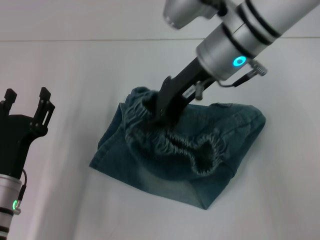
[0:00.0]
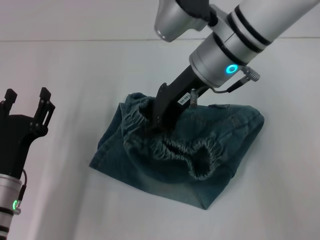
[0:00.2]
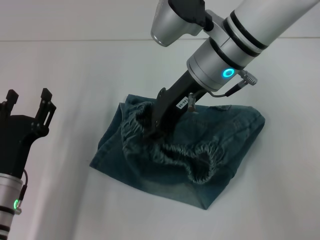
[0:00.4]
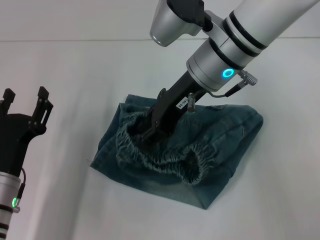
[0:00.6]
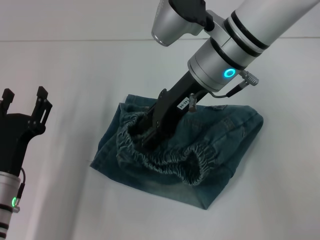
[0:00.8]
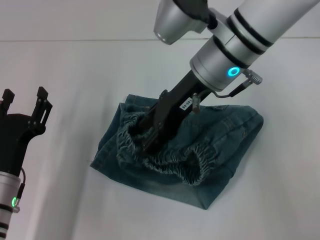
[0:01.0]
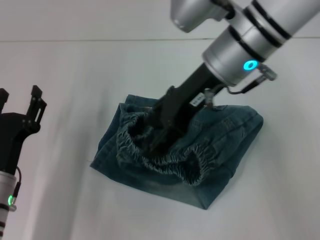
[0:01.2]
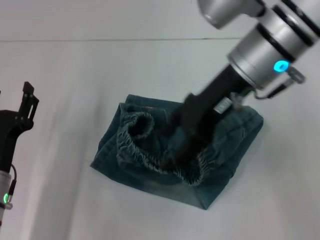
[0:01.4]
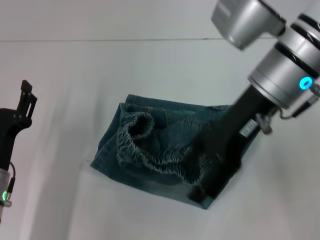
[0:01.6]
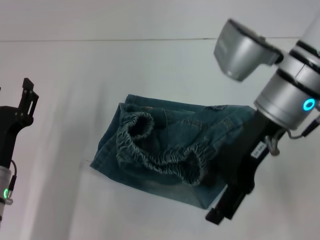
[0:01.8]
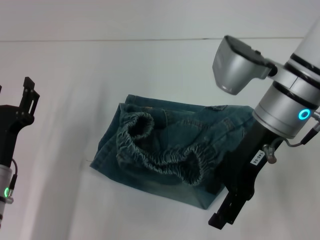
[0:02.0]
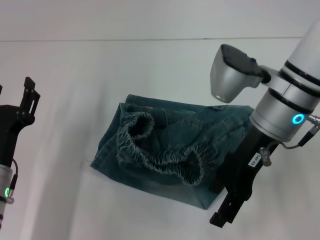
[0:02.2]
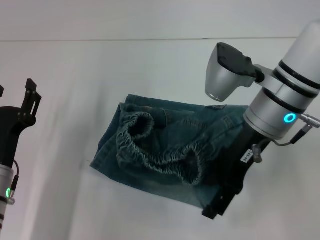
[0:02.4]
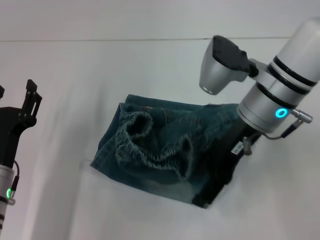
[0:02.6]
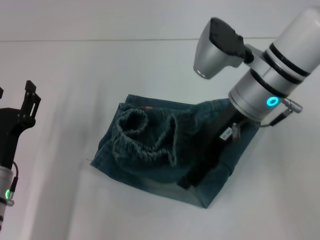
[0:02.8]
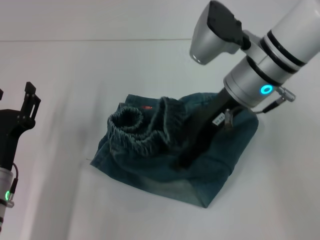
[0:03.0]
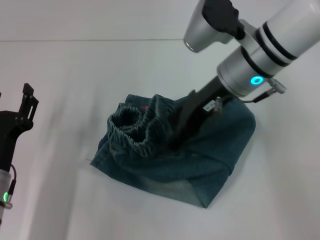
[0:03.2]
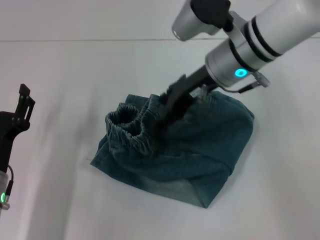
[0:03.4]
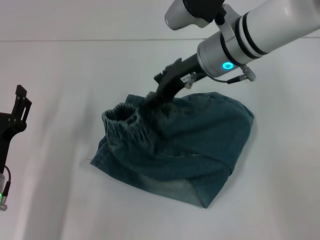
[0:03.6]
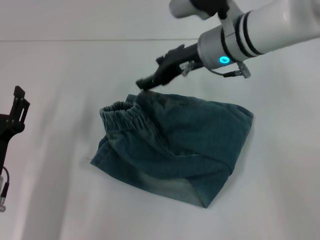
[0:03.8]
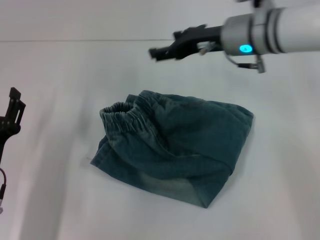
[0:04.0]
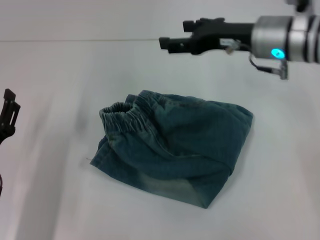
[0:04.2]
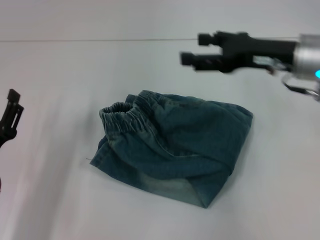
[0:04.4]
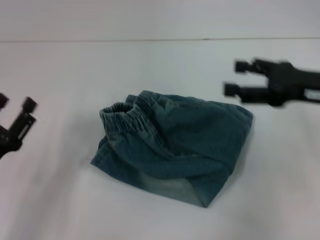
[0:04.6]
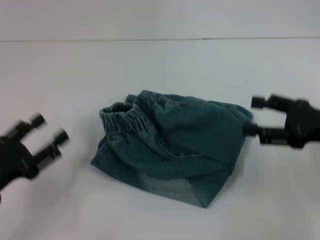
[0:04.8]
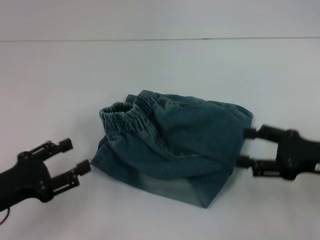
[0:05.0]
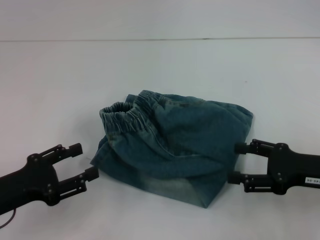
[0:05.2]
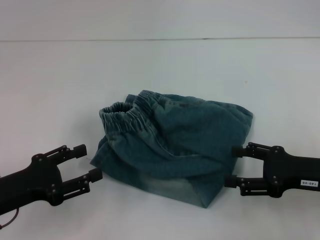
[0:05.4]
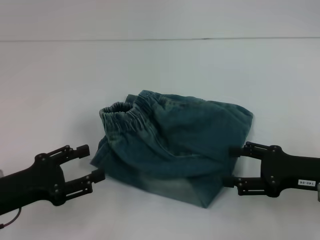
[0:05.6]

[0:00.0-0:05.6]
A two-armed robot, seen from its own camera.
Step, 0:00.6 to 0:03.8: Adjust the pants with your right hand.
0:00.0 to 0:01.4: The right gripper opens up.
0:01.4 to 0:02.8: The right gripper travels downward by approximately 5 cm.
0:02.8 to 0:04.2: The right gripper travels to the right by roughly 5 cm.
0:04.2 to 0:05.6: The right gripper heads backward, downward and to the right, covering roughly 20 cm. Meanwhile the left gripper shifts by approximately 5 cm.

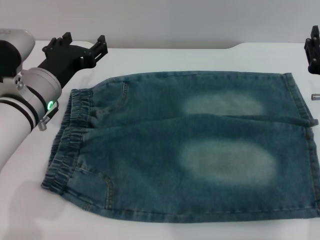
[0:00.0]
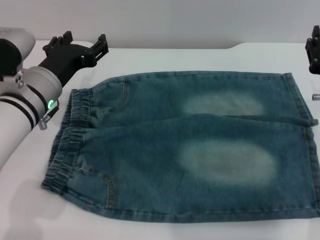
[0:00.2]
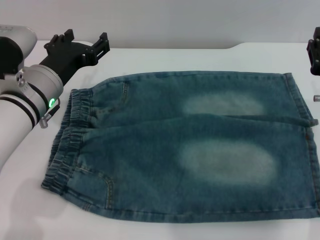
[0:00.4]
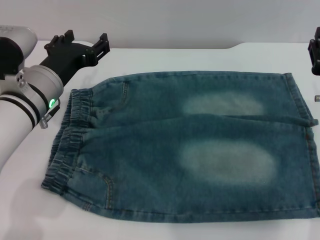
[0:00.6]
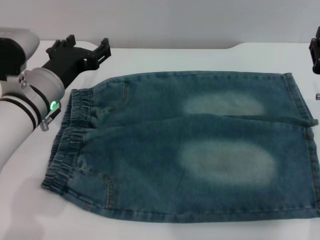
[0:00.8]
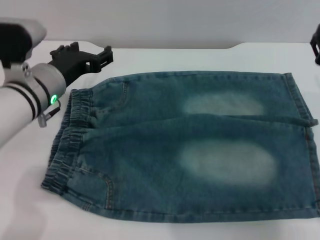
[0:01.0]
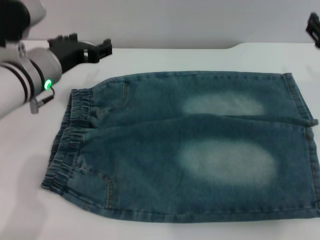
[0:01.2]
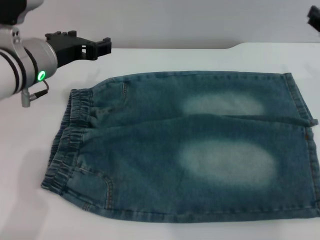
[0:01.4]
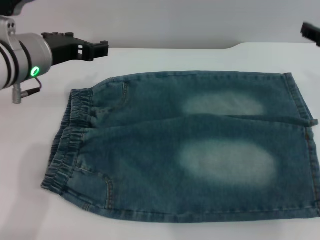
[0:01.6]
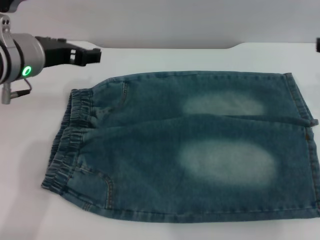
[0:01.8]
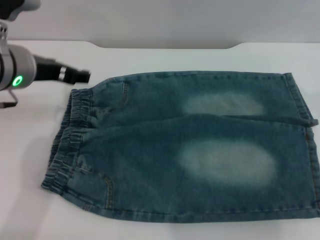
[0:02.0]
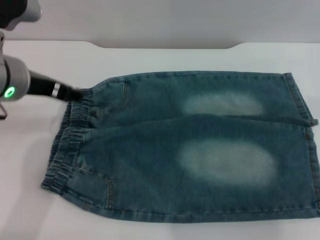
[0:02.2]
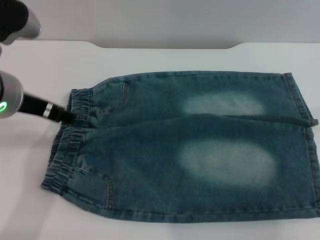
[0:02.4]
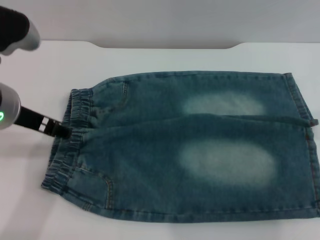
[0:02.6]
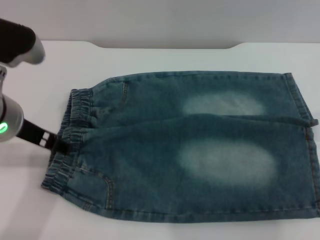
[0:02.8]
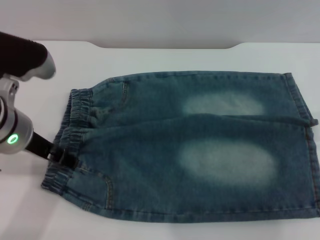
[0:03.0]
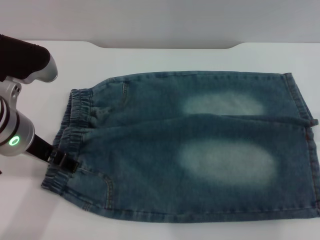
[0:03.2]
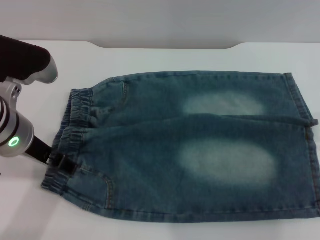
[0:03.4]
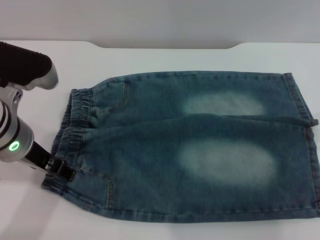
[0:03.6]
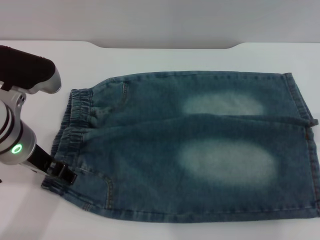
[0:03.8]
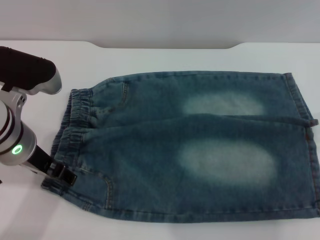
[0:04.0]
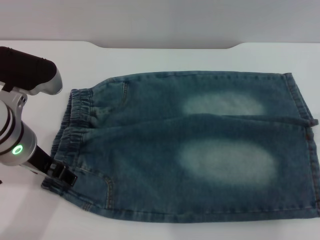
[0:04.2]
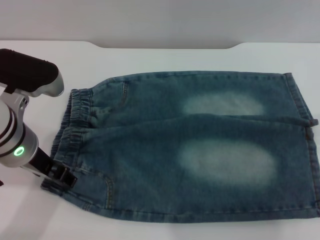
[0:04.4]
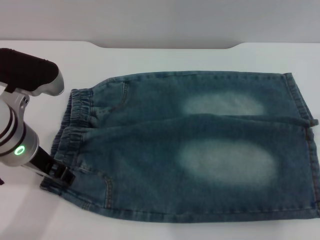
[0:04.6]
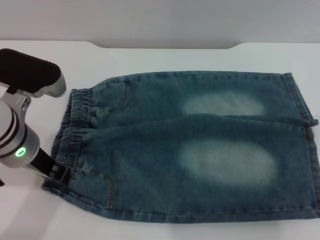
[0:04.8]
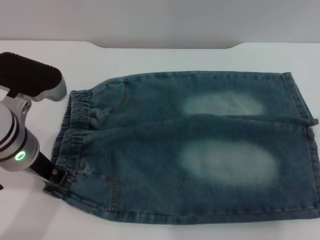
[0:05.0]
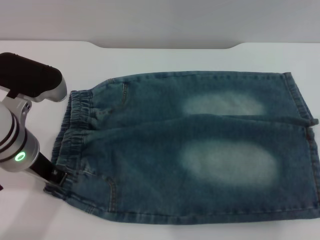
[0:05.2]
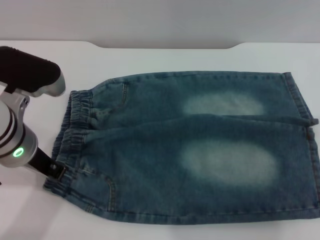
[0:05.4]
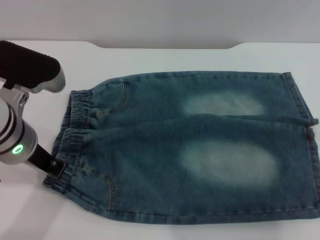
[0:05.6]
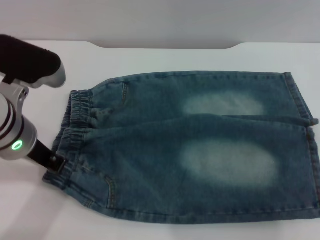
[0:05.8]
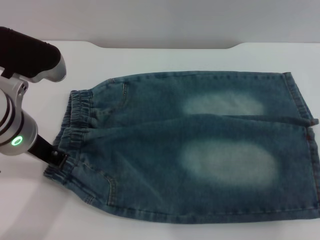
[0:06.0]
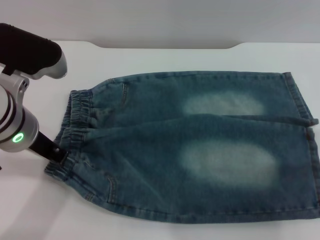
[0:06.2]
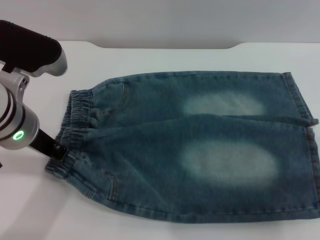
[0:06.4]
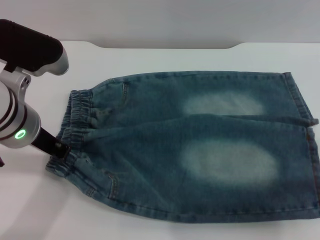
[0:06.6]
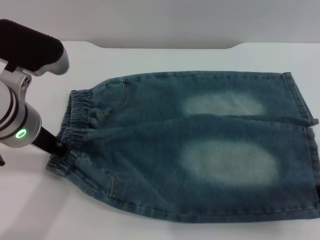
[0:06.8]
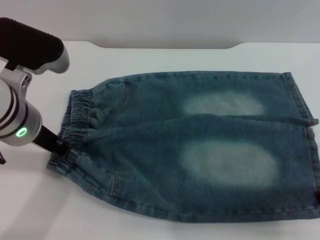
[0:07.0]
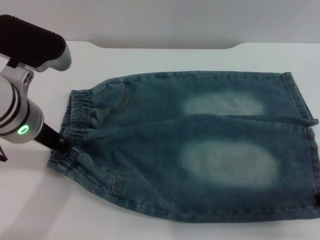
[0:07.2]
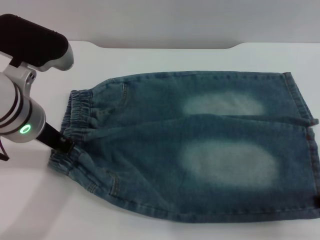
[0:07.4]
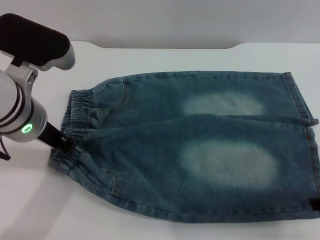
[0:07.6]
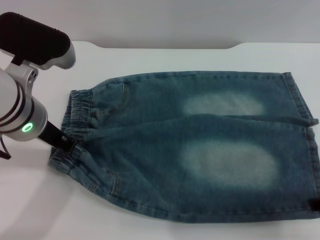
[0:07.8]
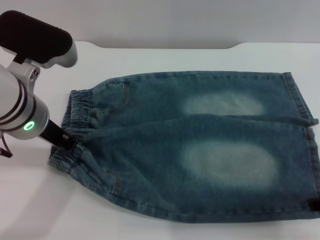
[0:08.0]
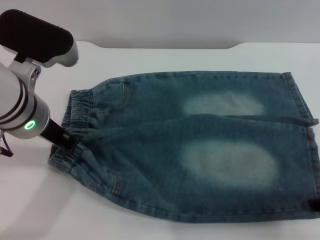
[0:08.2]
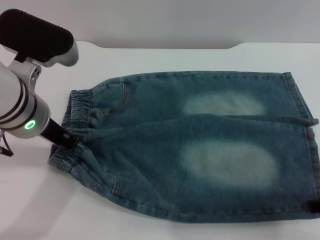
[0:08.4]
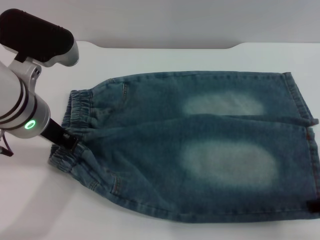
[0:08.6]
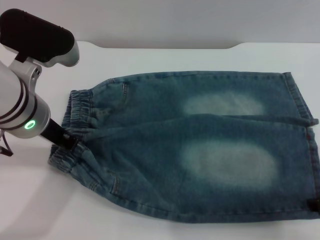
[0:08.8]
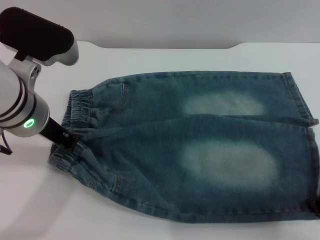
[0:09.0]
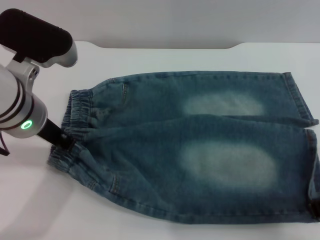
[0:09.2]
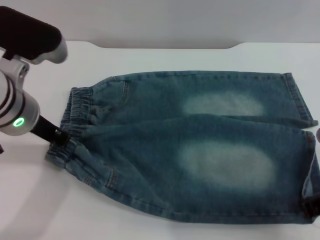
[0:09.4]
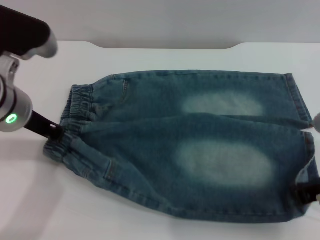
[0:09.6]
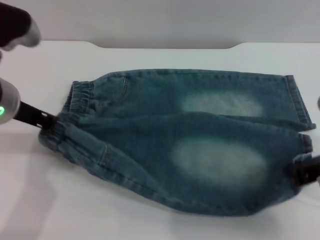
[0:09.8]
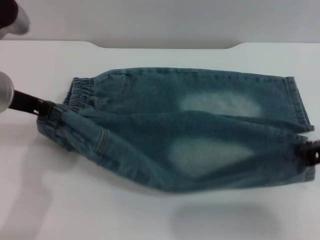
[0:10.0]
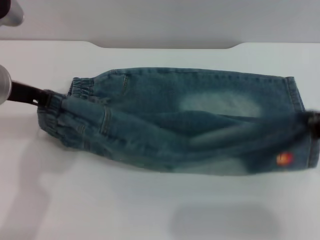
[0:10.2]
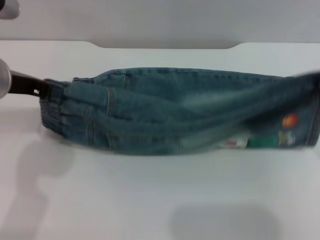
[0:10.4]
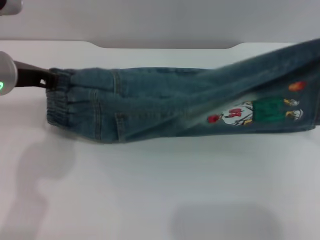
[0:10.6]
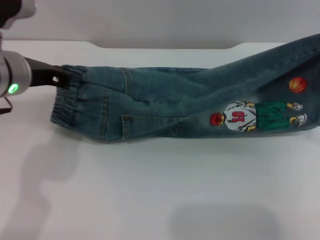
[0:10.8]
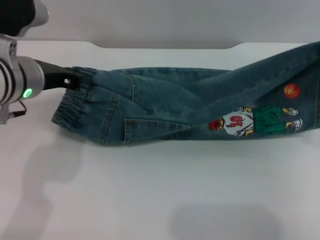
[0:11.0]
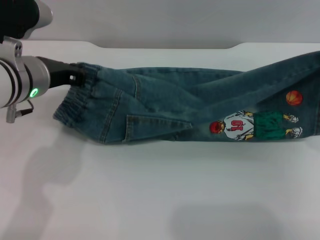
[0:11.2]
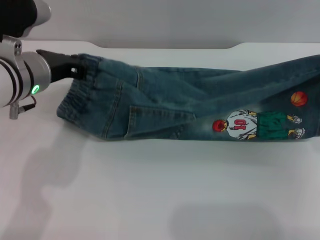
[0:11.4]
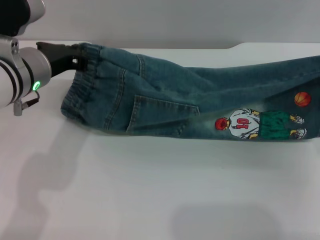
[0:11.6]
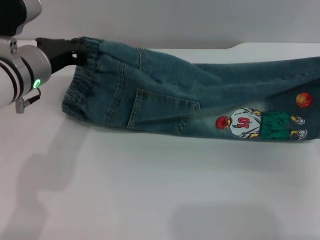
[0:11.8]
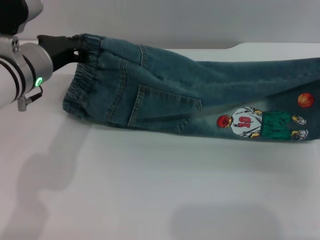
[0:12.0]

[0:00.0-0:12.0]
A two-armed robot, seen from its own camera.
0:00.0 to 0:01.6: The left gripper is displaced upward by roughly 5 cm. Meanwhile the right gripper shifts about 10 cm upward, to the right and forward.
0:01.6 to 0:03.0: The left gripper moves backward, some 5 cm.
0:03.0 to 0:04.4: The grippers make only small movements.
0:04.4 to 0:06.0: The left gripper closes.
0:06.0 to 0:07.6: The right gripper moves approximately 5 cm.
0:07.6 to 0:09.0: The right gripper closes up.
0:09.0 to 0:10.4: The right gripper heads upward, covering about 5 cm, and closes its fingers; the left gripper changes place by approximately 5 cm.
0:10.4 to 0:12.0: The right gripper moves downward, roughly 10 cm. The left gripper moves approximately 5 cm.

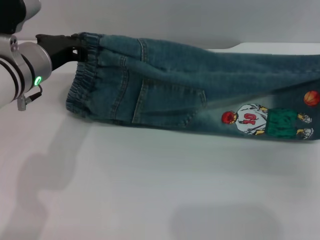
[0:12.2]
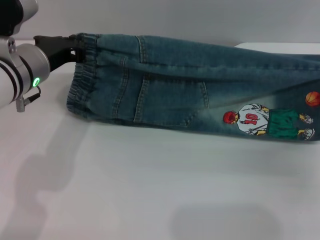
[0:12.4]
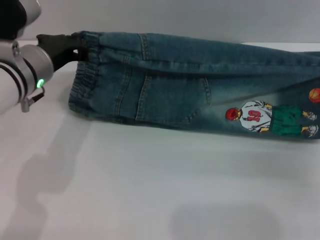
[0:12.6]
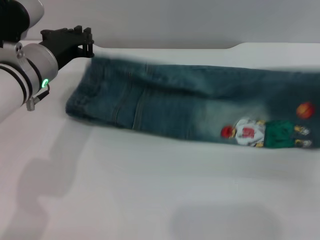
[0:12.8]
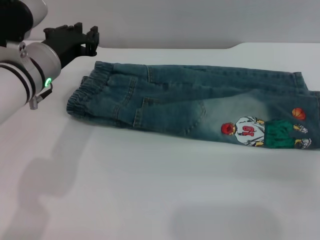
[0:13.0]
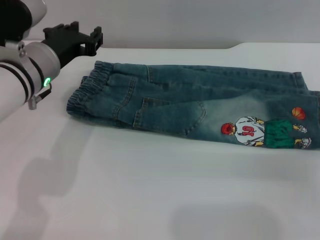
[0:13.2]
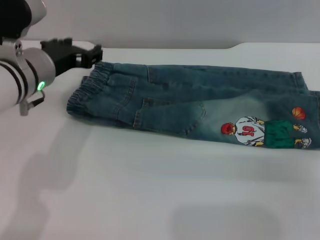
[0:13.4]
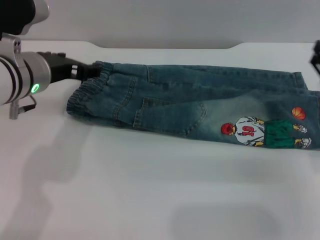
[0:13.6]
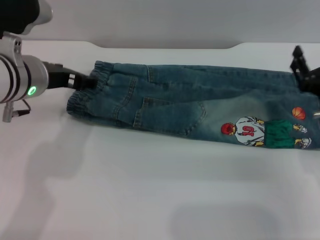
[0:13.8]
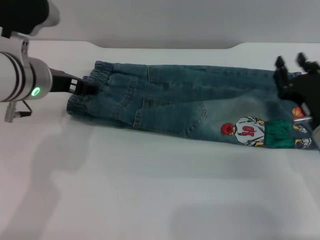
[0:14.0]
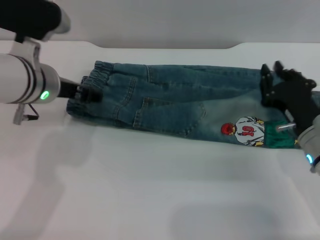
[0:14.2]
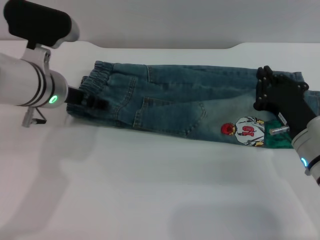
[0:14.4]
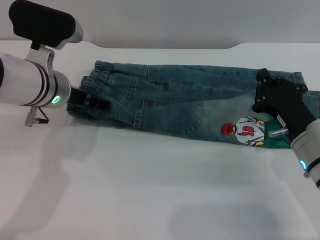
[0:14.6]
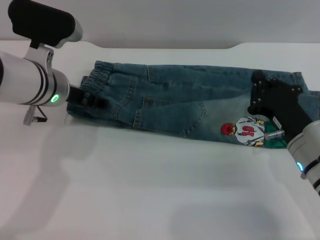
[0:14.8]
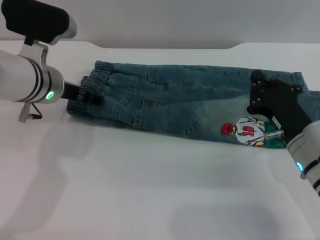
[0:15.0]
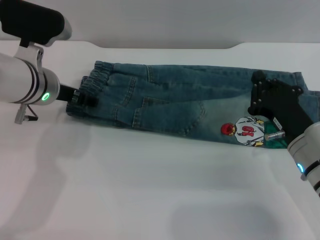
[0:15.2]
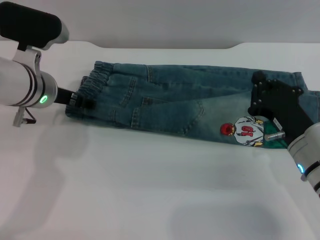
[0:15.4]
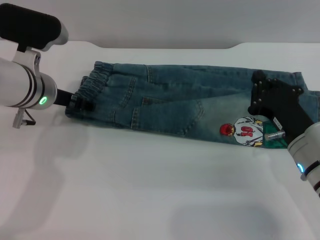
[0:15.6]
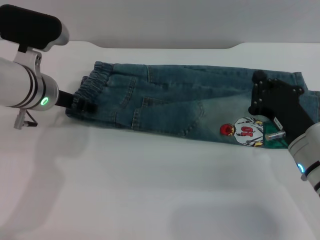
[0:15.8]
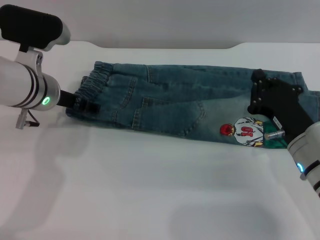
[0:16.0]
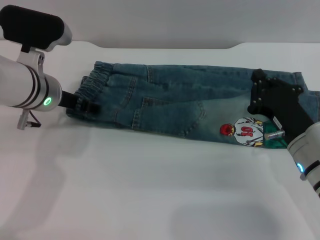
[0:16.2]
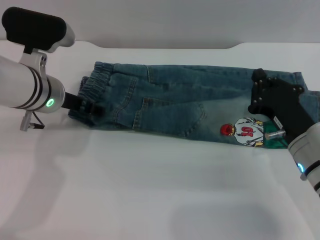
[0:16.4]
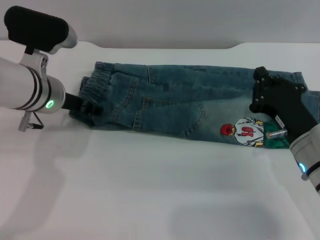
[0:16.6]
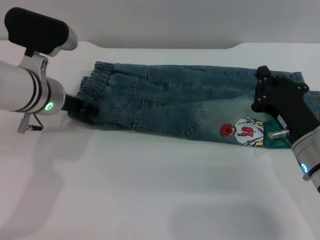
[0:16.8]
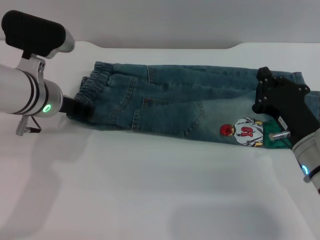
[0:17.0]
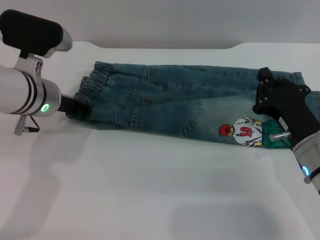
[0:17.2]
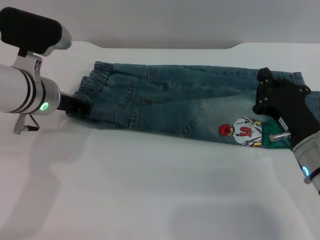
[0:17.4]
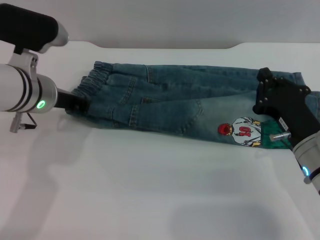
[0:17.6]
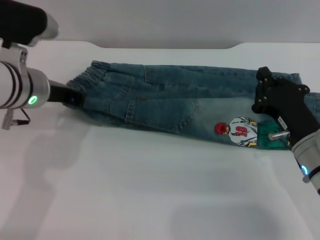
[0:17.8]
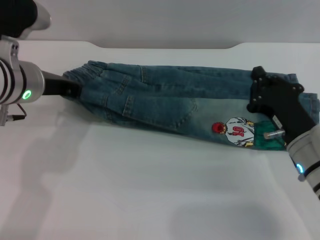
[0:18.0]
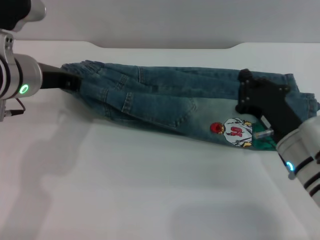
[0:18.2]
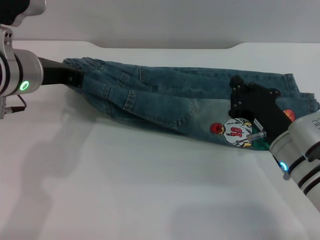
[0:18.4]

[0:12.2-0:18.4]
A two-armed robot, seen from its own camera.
0:12.2 to 0:13.8: The right gripper moves about 5 cm, and opens up. Meanwhile the left gripper opens up.
0:13.8 to 0:15.4: The right gripper moves roughly 5 cm, and closes, while the left gripper shifts by some 5 cm.
0:15.4 to 0:16.8: The grippers move only a little.
0:16.8 to 0:18.4: The left gripper goes some 5 cm upward, and closes.
